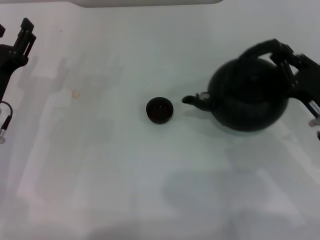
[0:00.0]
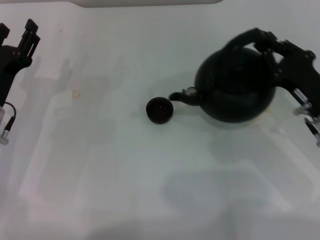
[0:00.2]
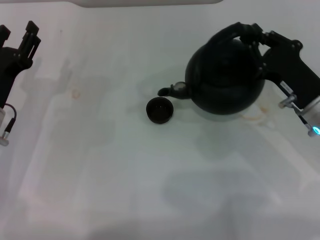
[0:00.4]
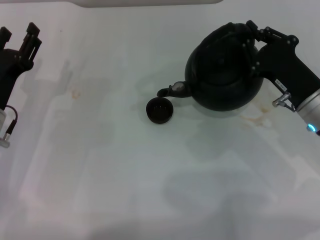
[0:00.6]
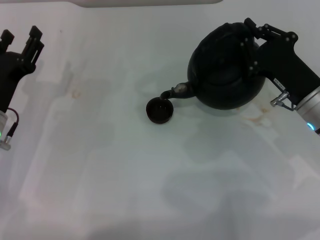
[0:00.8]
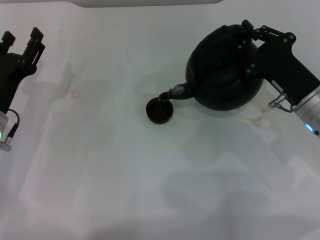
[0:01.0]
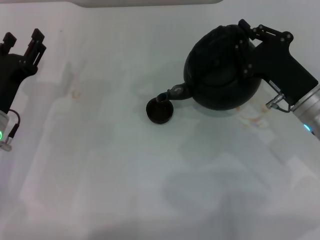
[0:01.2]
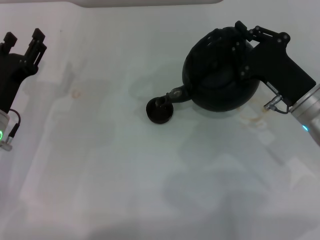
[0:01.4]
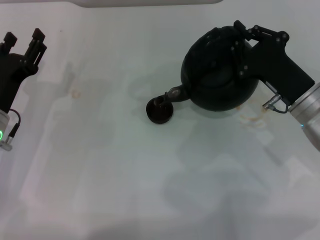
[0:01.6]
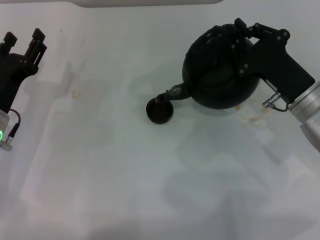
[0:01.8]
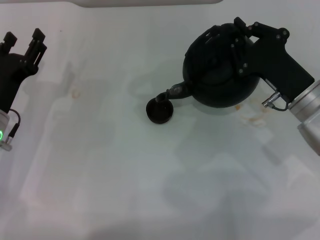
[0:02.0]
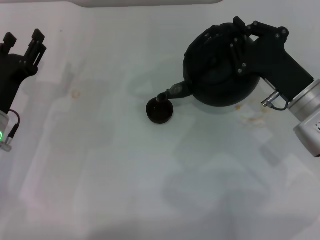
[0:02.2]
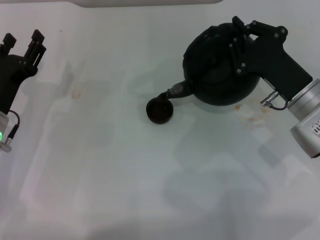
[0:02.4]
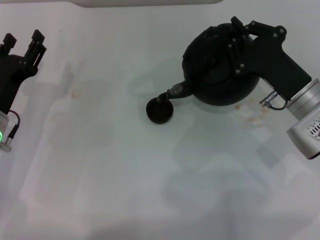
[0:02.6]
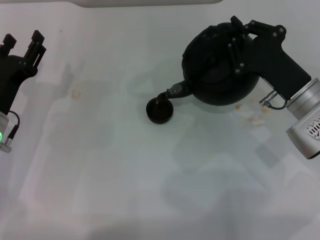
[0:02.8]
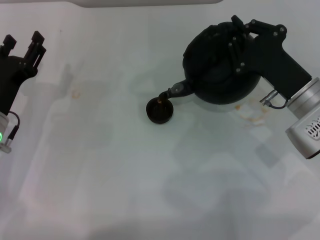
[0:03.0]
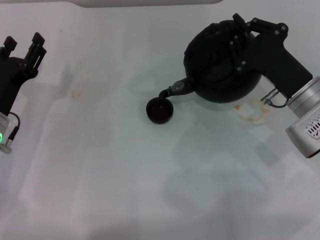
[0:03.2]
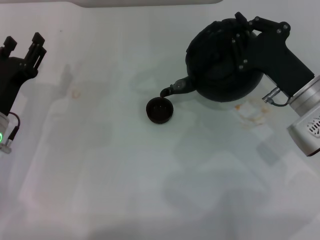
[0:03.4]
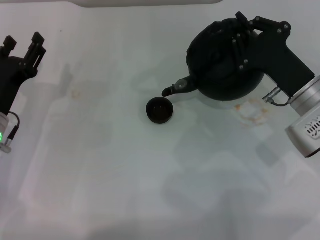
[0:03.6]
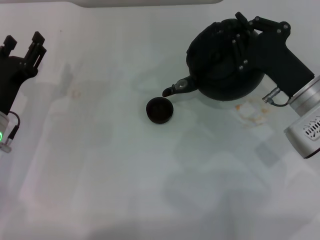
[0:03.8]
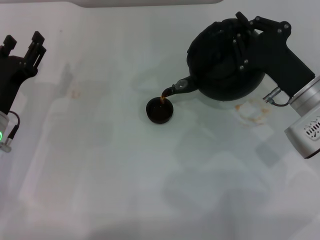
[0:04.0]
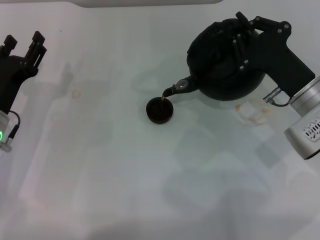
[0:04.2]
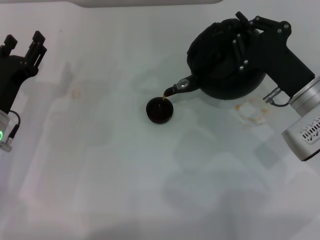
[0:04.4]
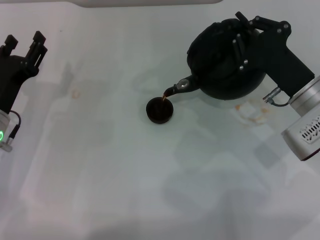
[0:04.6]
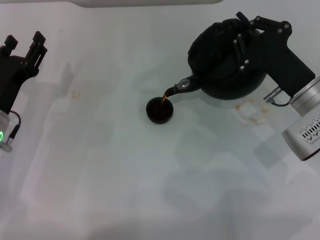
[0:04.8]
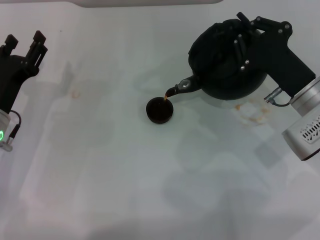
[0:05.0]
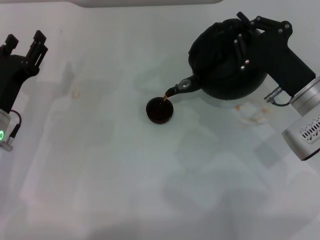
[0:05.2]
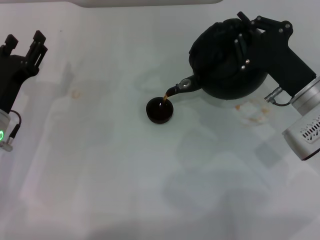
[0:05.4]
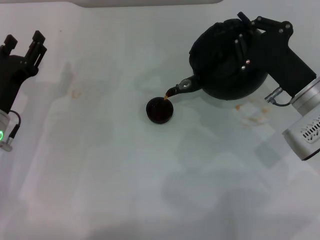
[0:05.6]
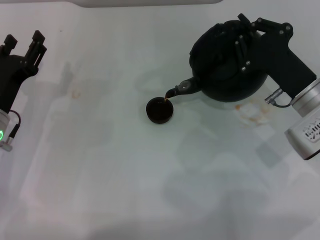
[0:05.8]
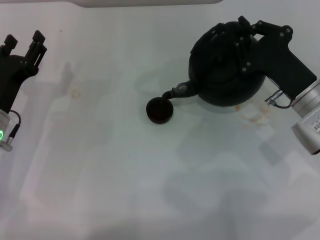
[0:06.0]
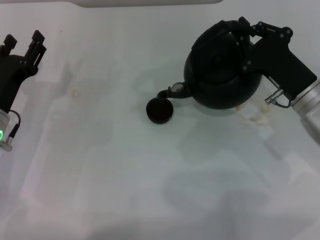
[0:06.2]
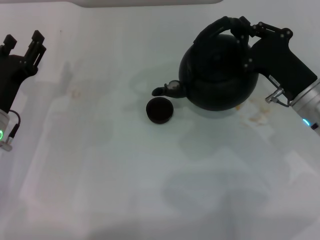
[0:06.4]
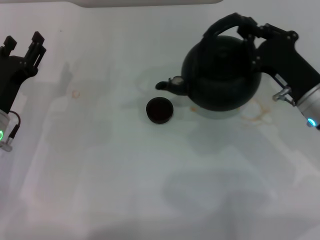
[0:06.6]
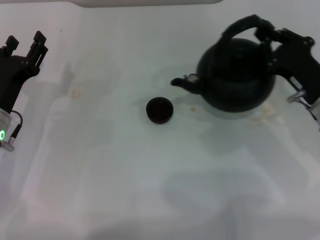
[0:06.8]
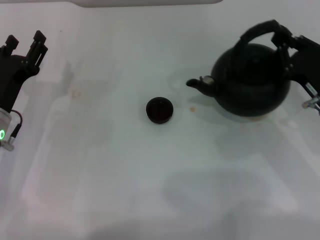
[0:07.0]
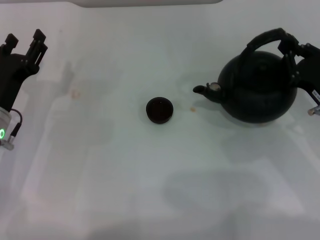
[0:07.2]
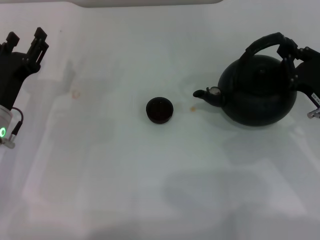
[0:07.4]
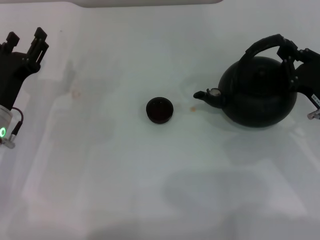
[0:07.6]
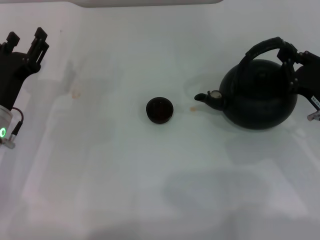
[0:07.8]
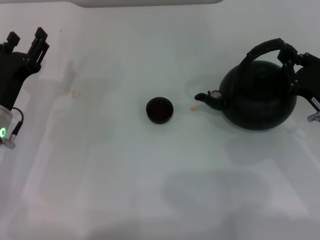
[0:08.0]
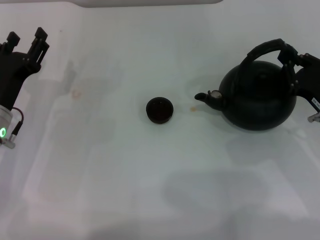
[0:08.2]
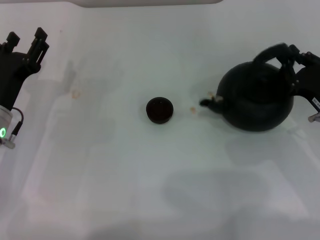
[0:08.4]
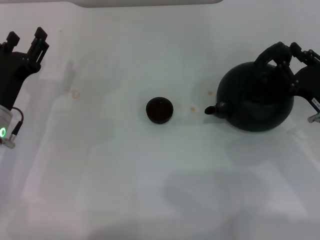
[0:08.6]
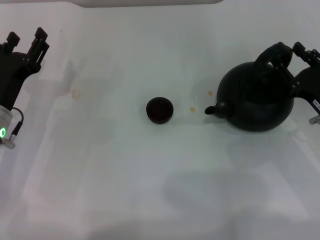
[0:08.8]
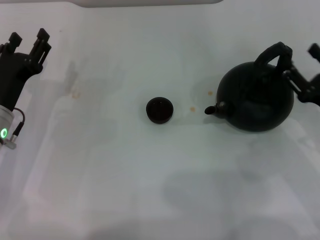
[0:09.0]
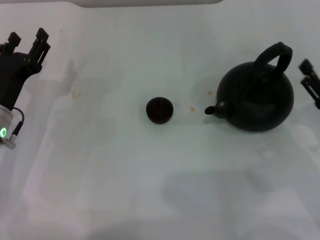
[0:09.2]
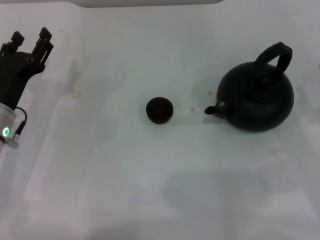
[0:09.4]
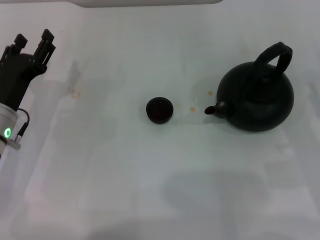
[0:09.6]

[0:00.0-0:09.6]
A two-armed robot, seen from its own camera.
Task of the whole recording: Grasp the handle of the teapot with one hand and pour tea into the teacup.
Step, 0:00.4 to 0:06.2: Pour tea into the teacup with the right gripper.
Step, 0:06.4 to 0:09.2: Put down the teapot with the right gripper.
0:00.0 to 0:01.6: The right gripper is displaced to the left by approximately 5 cm.
0:01.6 to 0:04.8: The grippers make only small movements.
0:06.4 to 0:08.0: The right gripper travels to the right by approximately 5 cm.
0:08.0 to 0:09.6: The right gripper goes approximately 5 cm backward, and opens up.

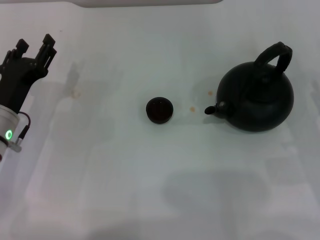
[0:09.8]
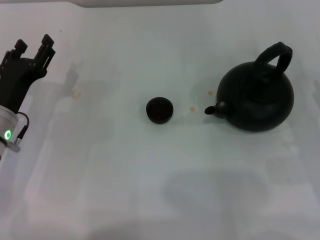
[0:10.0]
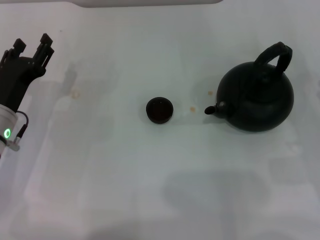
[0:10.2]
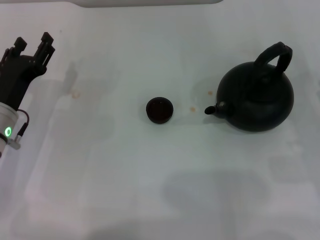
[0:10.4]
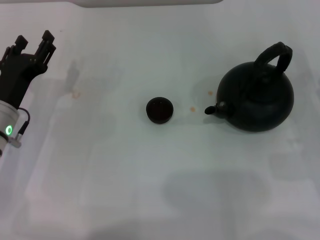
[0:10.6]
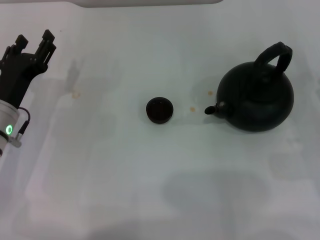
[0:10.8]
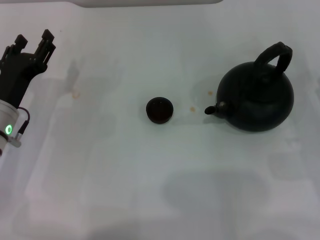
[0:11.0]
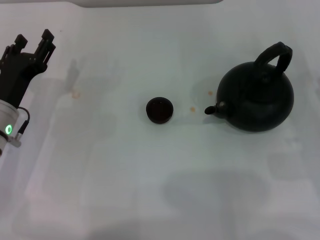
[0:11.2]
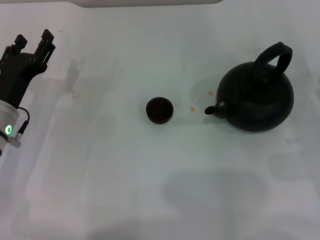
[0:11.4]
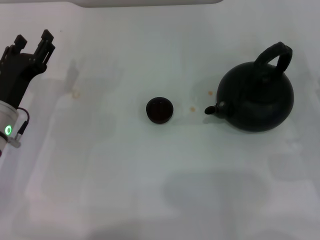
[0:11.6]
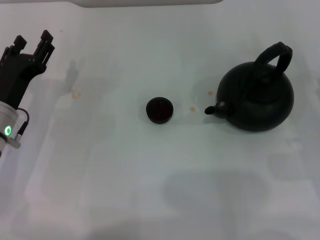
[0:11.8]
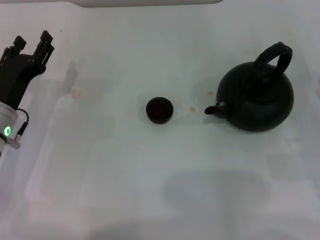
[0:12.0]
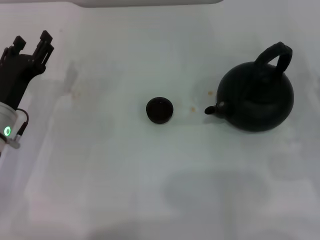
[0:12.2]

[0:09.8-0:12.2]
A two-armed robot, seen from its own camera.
Task of the whole recording: Grasp the handle of the teapot with one hand and pour tea into the teacup.
0:09.8 to 0:12.2: Neither gripper changes place.

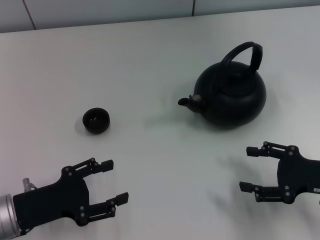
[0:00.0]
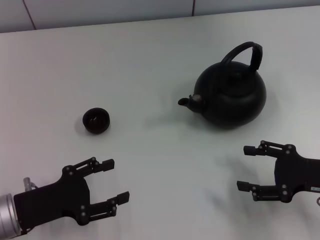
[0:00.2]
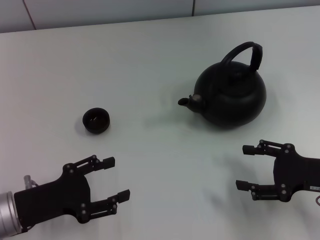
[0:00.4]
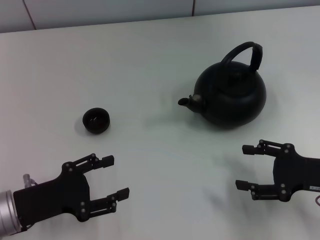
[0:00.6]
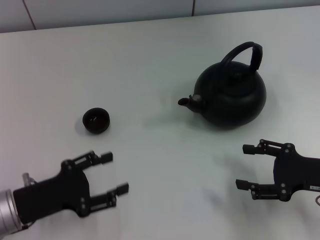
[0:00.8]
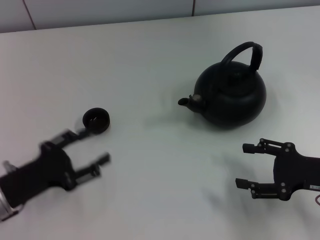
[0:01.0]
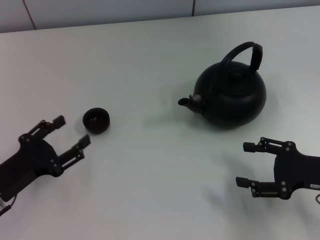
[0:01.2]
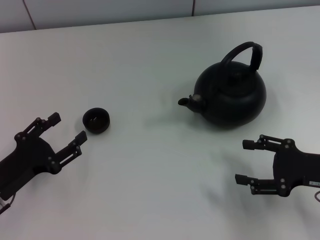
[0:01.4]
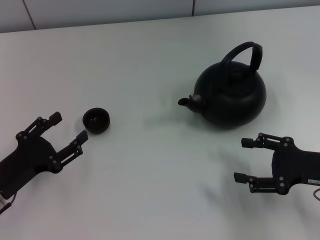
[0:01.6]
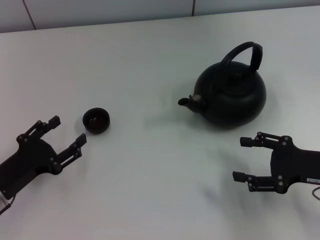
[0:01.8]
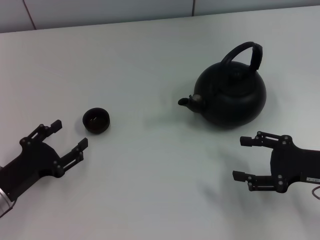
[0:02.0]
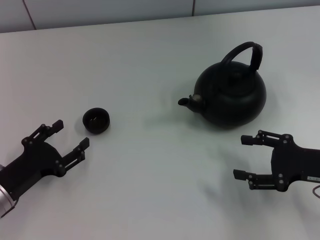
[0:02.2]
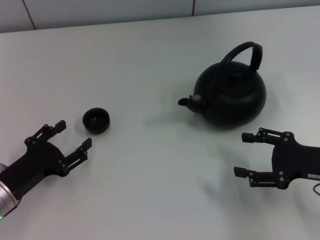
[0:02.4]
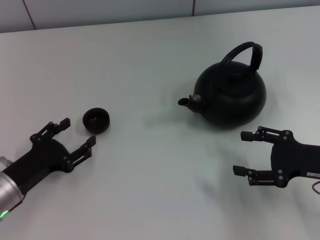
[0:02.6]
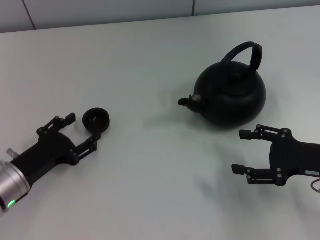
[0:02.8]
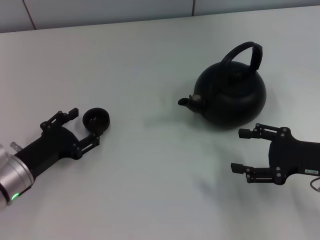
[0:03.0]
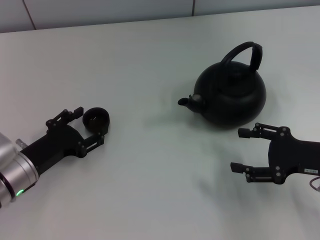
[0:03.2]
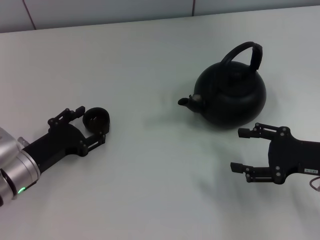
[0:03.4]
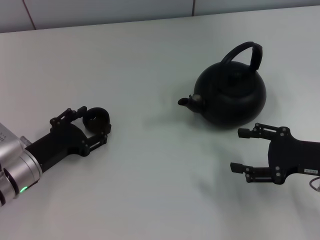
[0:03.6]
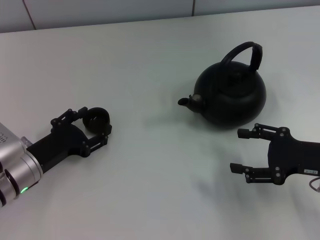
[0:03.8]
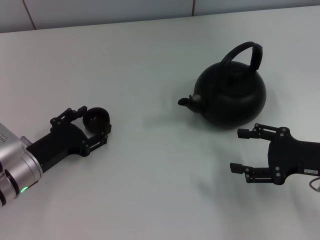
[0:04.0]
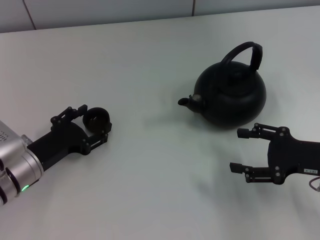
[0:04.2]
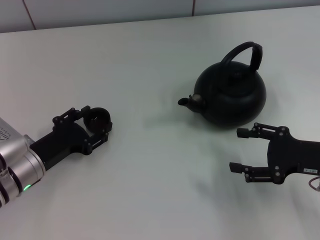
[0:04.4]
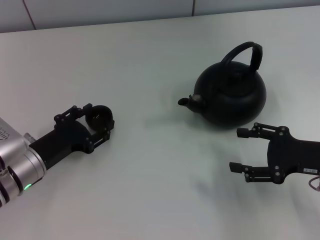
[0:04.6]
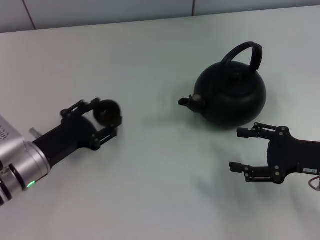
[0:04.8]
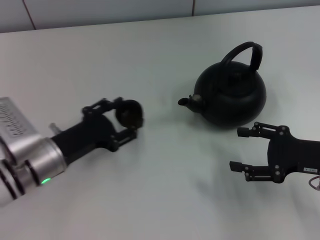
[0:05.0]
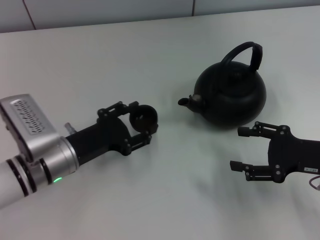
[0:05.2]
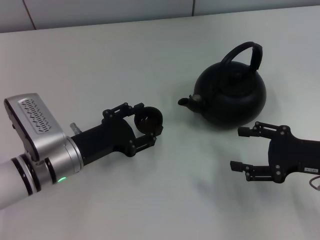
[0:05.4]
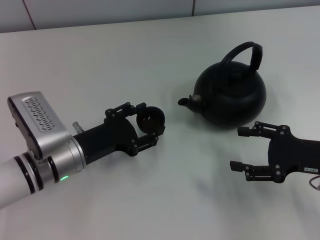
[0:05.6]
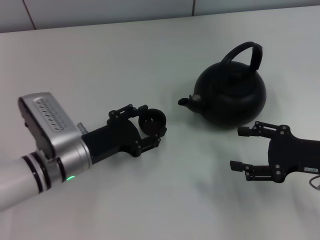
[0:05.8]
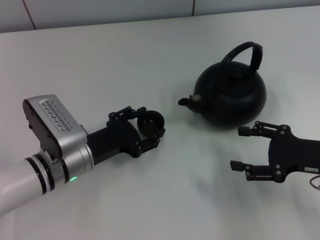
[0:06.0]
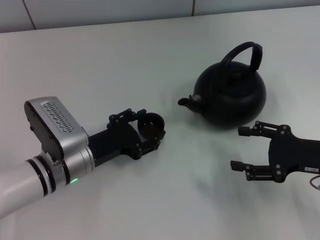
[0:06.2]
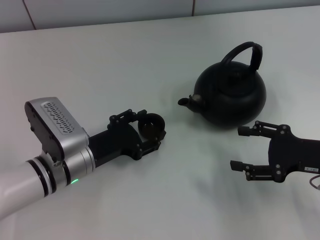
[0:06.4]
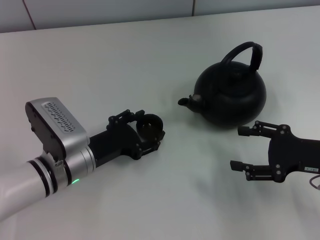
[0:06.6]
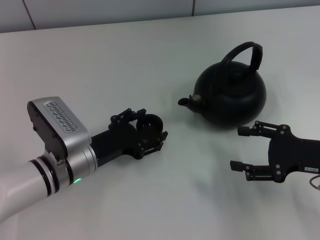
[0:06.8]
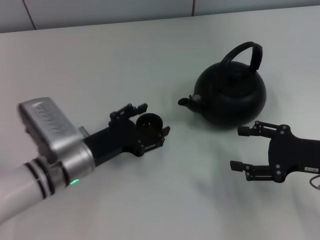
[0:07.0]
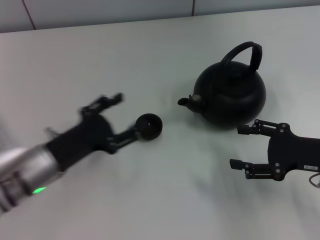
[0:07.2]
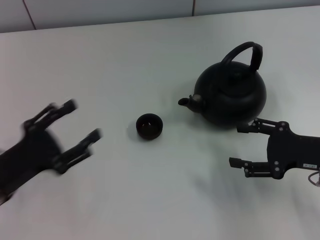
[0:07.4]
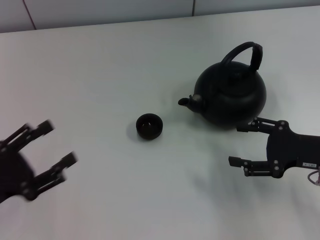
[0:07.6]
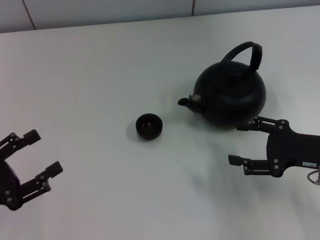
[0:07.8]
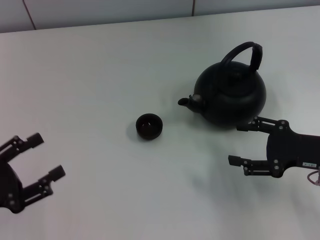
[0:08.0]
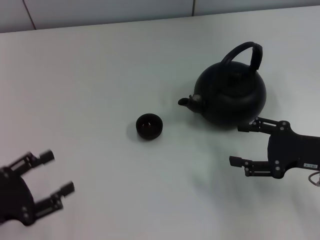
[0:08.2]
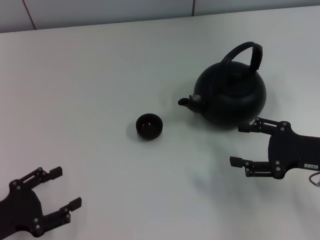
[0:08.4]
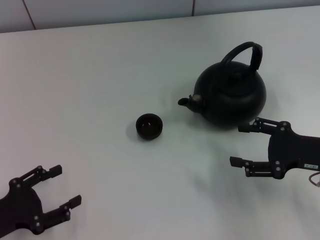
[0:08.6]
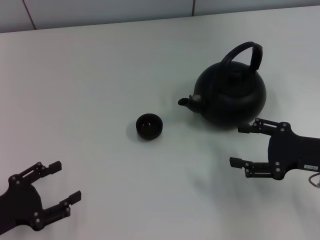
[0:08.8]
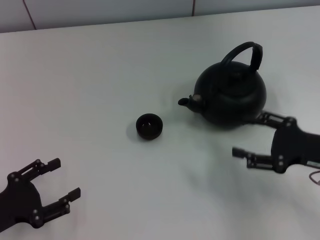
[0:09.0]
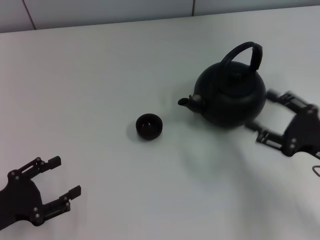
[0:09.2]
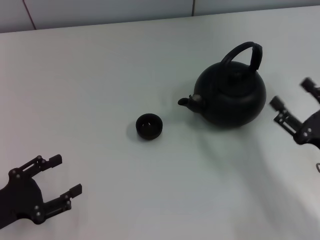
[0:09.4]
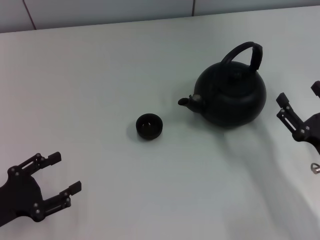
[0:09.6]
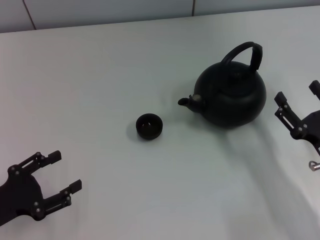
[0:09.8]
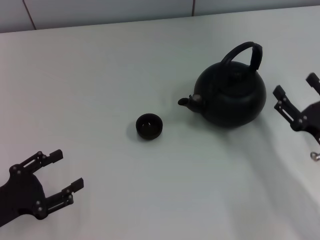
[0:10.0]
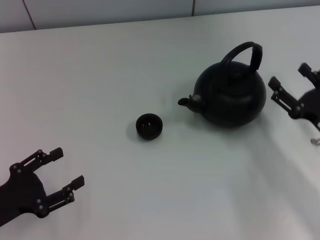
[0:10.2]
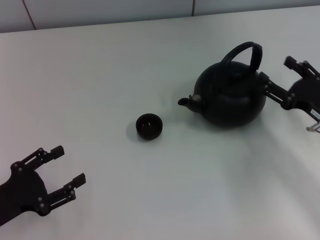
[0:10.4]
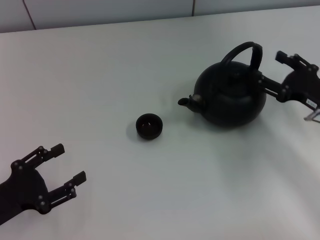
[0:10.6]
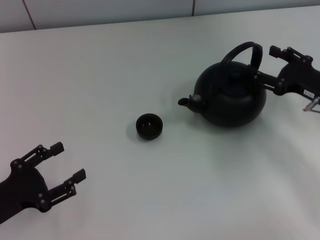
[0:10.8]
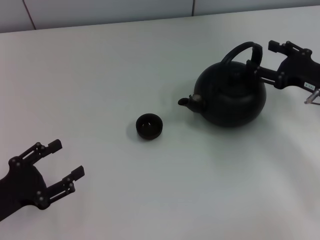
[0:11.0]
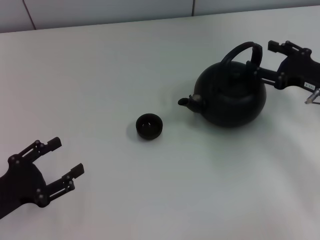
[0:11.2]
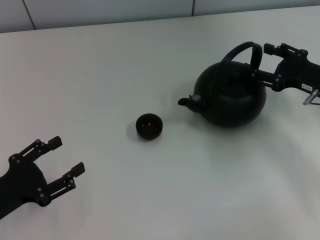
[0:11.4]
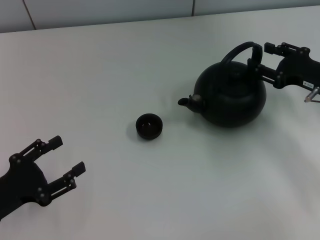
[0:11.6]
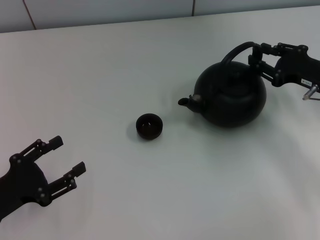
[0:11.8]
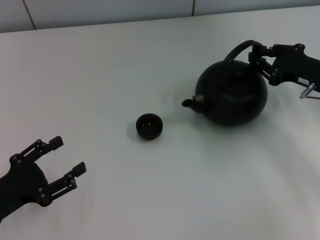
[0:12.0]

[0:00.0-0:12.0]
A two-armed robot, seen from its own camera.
Task of the whole recording: Grasp the handle of the teapot with one hand and pour tea into the teacup.
Step, 0:00.0 to 0:05.0: Pick up the teacup with the left gripper.
Step, 0:05.2 to 0:07.4: Place the teacup in the center of view with the left gripper.
0:01.6 to 0:03.0: The grippers stay close to where they were, moving slightly.
0:03.0 to 0:04.4: There are only small adjustments of the grippers.
0:04.4 to 0:06.0: The left gripper shifts roughly 5 cm to the right.
0:06.0 to 0:07.6: The left gripper shifts roughly 15 cm to the left and backward.
0:07.6 to 0:09.0: There are only small adjustments of the grippers.
0:10.4 to 0:12.0: The right gripper heads forward, covering about 5 cm, and closes.
